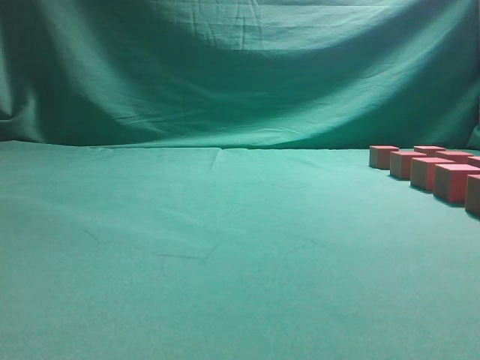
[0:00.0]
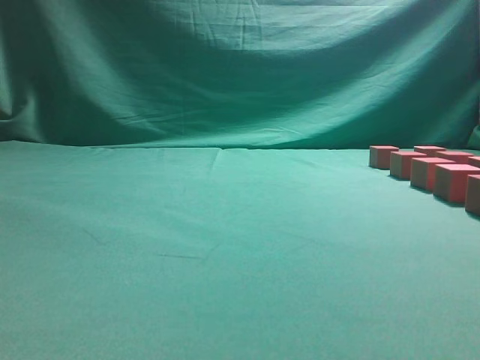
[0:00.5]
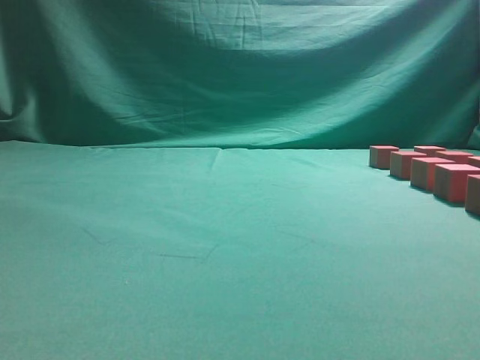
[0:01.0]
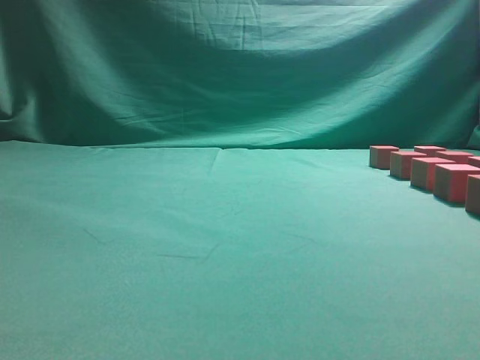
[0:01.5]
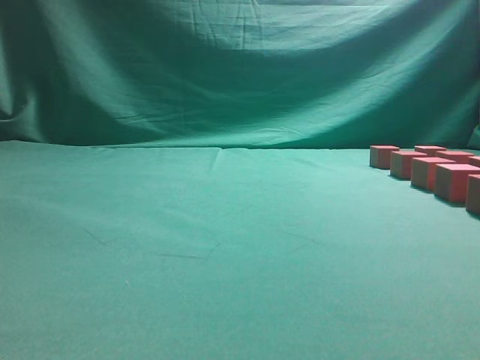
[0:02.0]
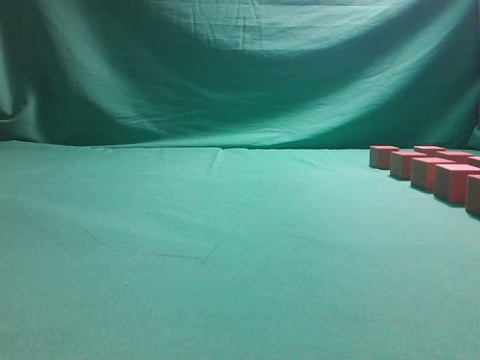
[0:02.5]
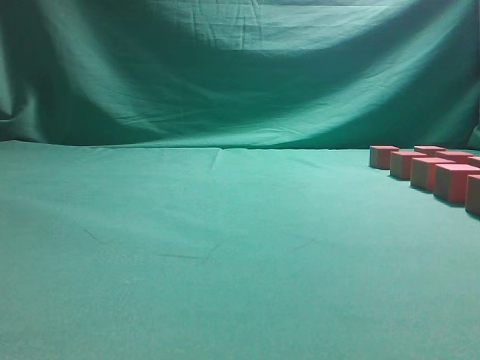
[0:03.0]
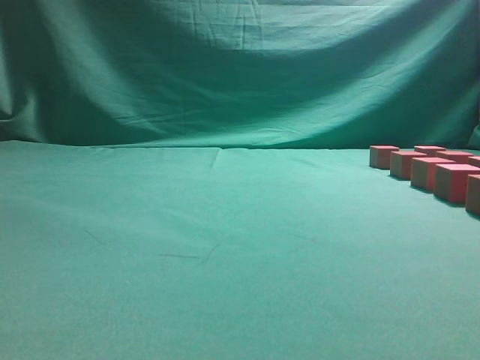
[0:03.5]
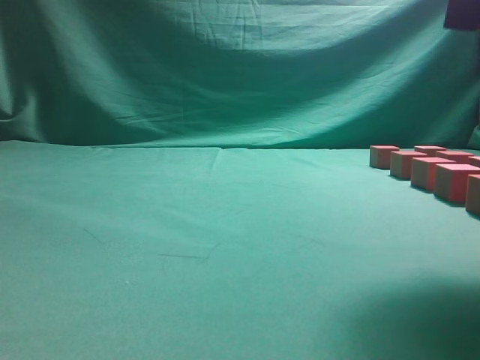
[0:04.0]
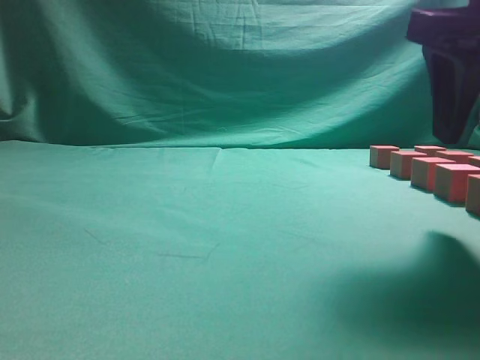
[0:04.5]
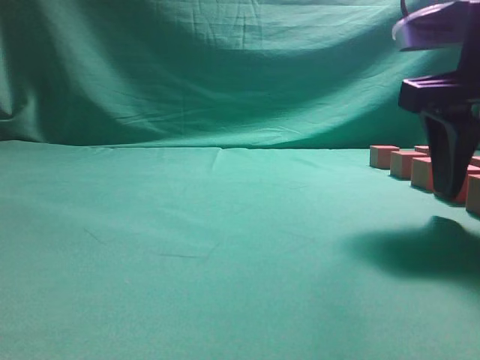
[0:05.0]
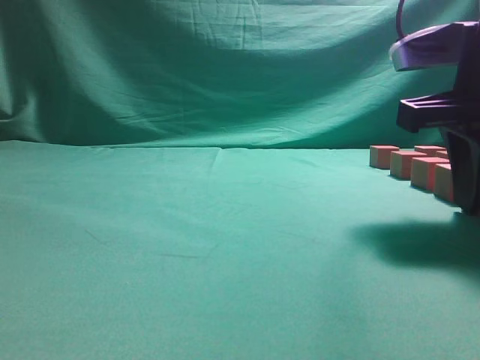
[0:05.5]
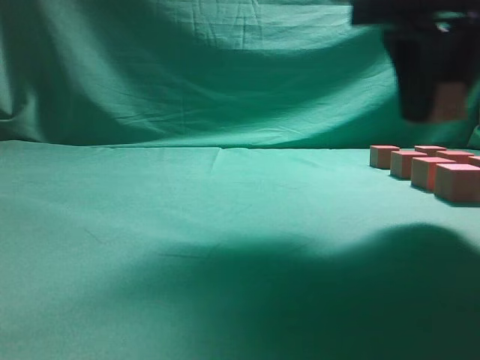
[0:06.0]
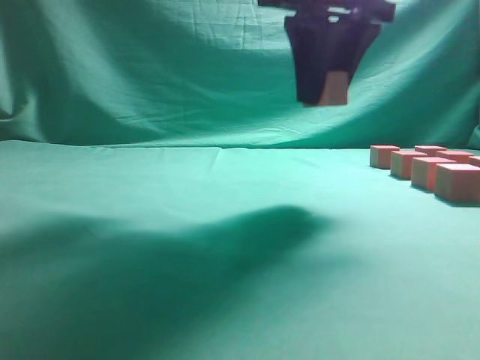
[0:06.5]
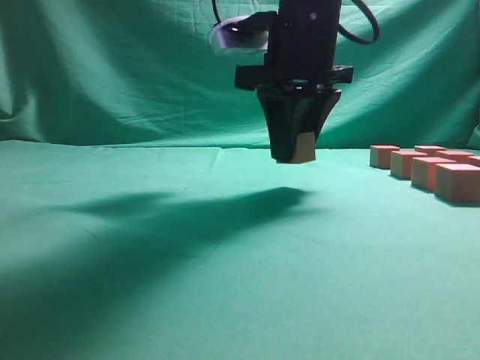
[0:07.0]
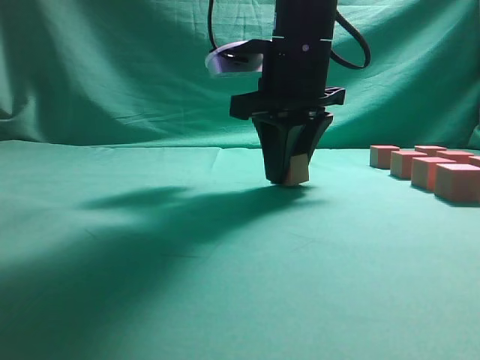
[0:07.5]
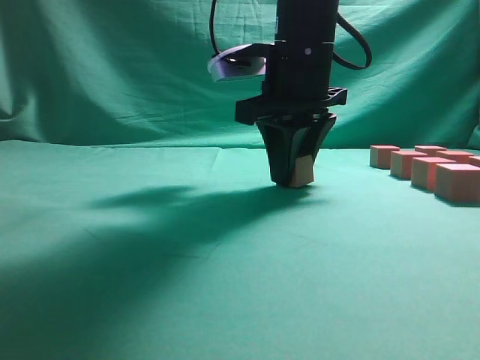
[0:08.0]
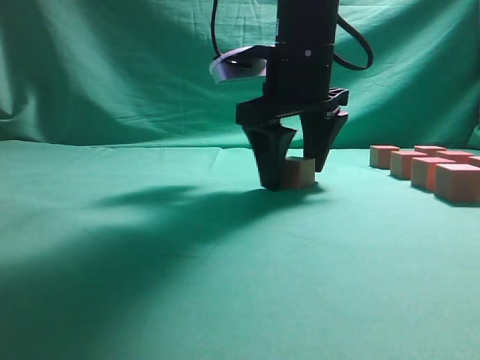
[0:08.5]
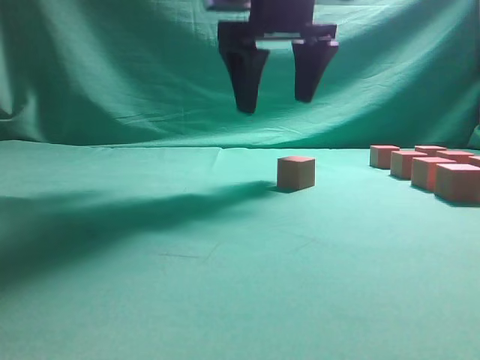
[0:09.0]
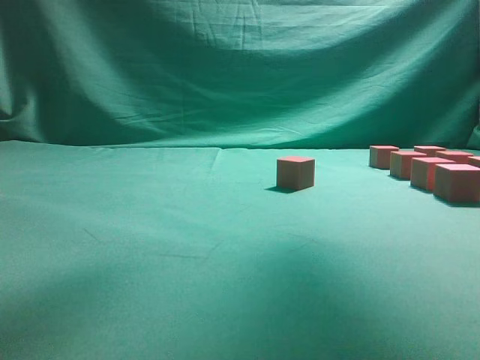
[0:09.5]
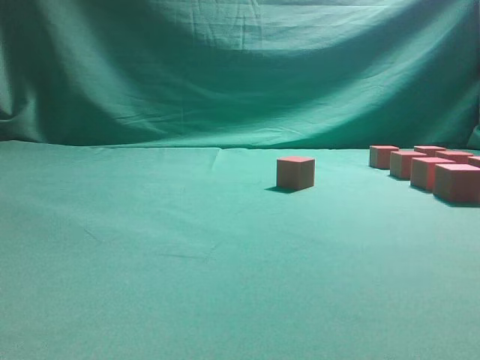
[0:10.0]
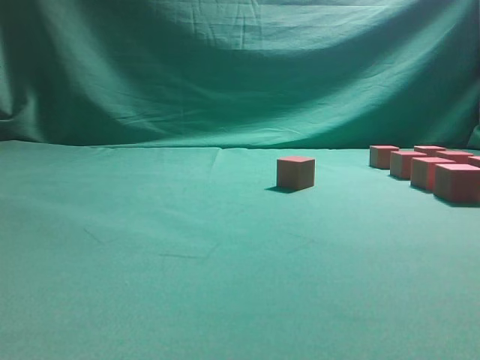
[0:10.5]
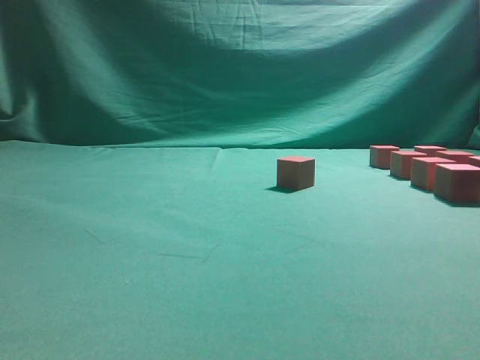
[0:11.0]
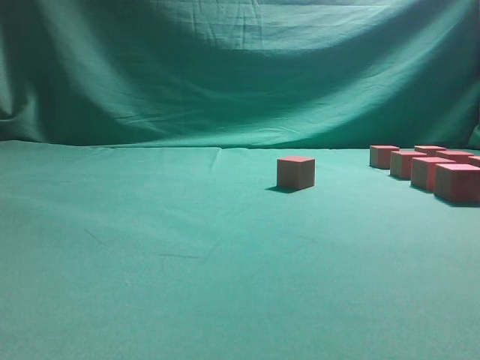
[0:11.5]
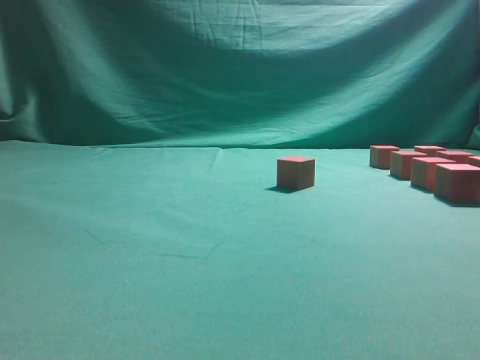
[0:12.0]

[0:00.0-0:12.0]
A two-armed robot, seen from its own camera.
Task of the whole recording: pick up the multiple cubes in two columns one by one and place them in another position on the table.
Step, 0:00.0 to 0:05.5: Pick up the block on the table.
Step, 0:06.0 to 0:09.0: Place the block at the correct position to assemble the letter S.
Step, 0:09.5 to 0:11.5: Pick up the block on the table.
0:02.0 to 0:04.0: The right gripper moves forward and to the left, some 20 cm, and opens.
0:04.0 to 0:06.0: The right gripper shifts roughly 5 cm forward, reaches some 5 cm downward, then returns, and opens, then closes again.
0:06.0 to 0:08.0: The right gripper moves forward, to the left and downward, approximately 15 cm.
0:08.0 to 0:10.0: The right gripper is displaced to the right, upward and backward by roughly 25 cm, and opens its fingers.

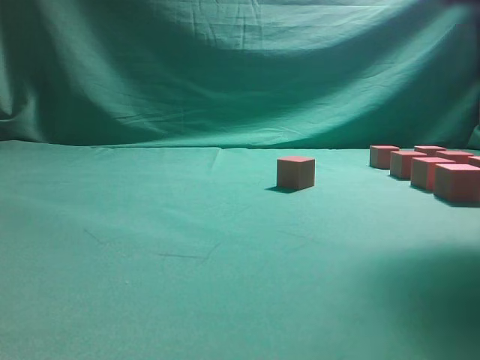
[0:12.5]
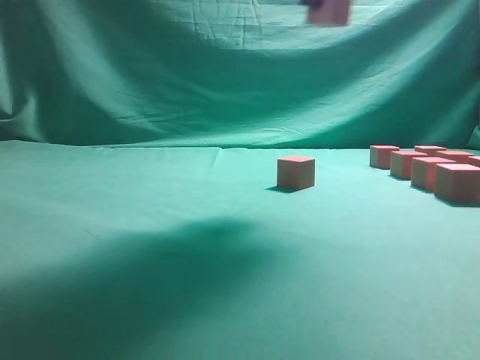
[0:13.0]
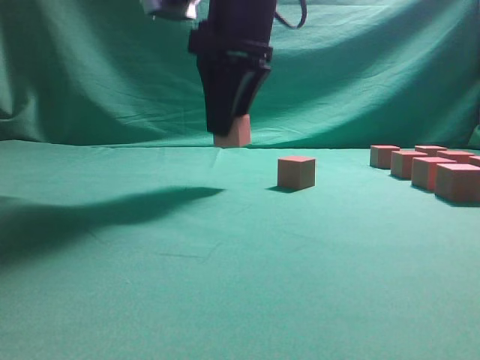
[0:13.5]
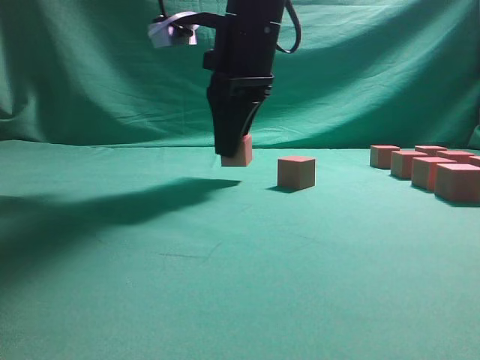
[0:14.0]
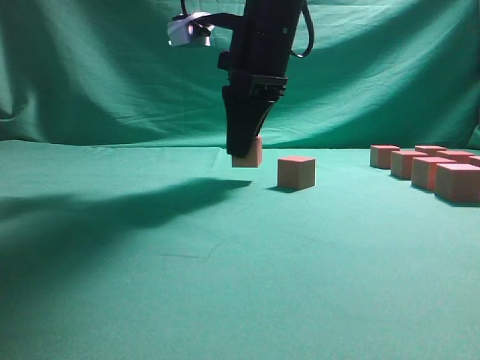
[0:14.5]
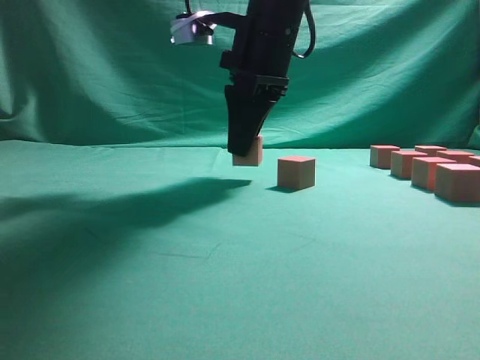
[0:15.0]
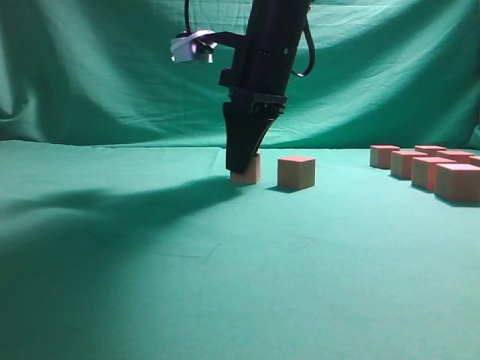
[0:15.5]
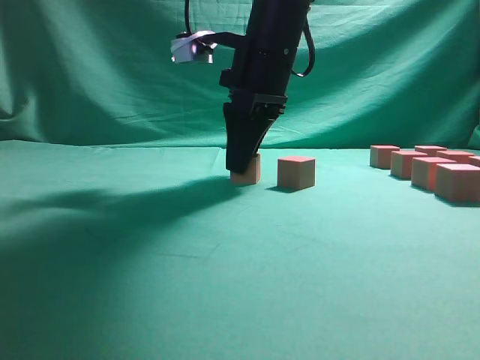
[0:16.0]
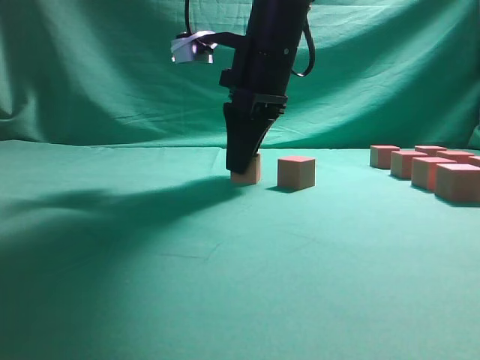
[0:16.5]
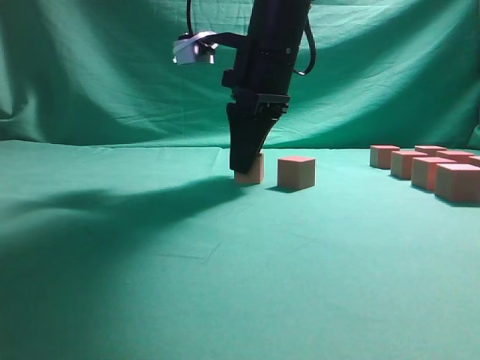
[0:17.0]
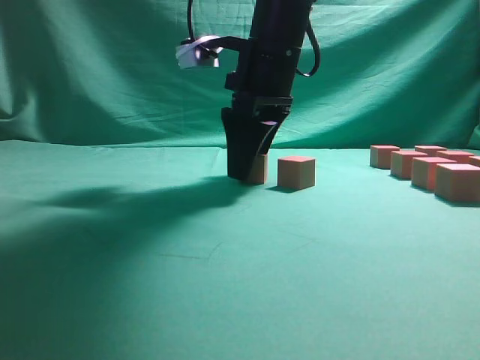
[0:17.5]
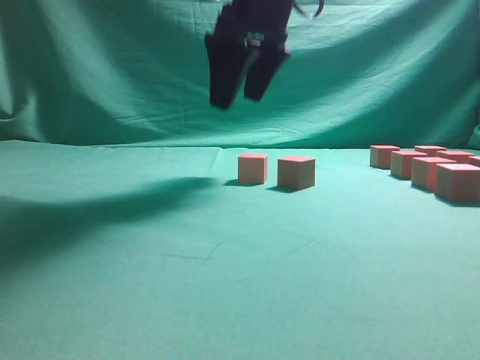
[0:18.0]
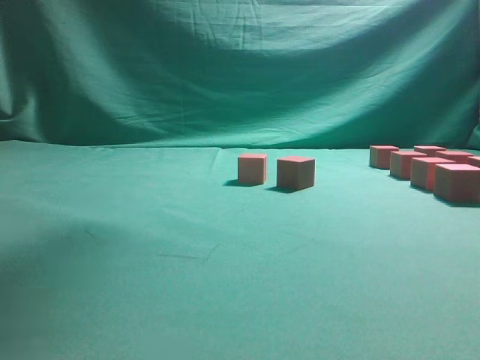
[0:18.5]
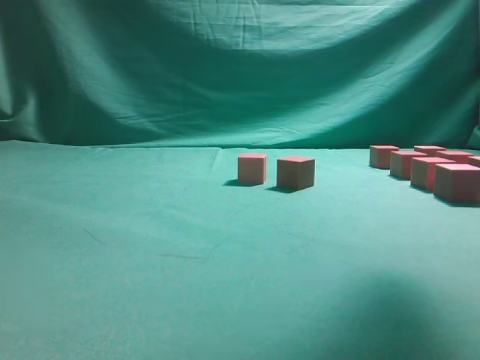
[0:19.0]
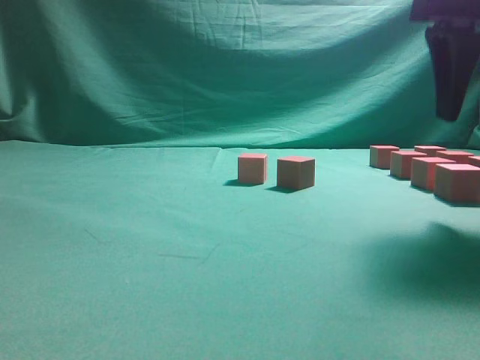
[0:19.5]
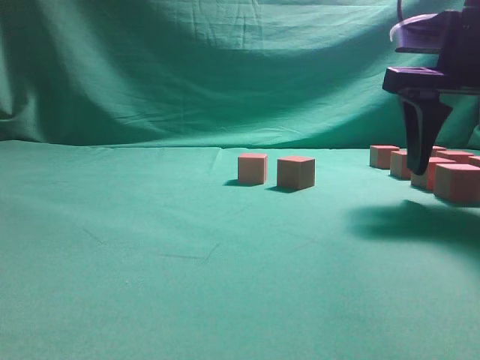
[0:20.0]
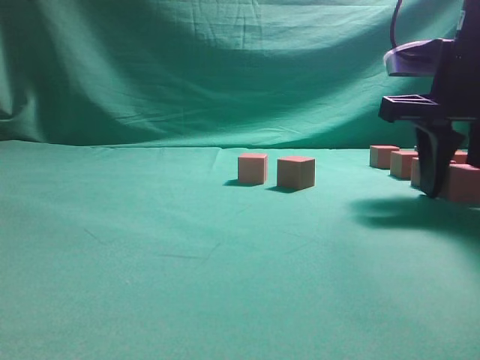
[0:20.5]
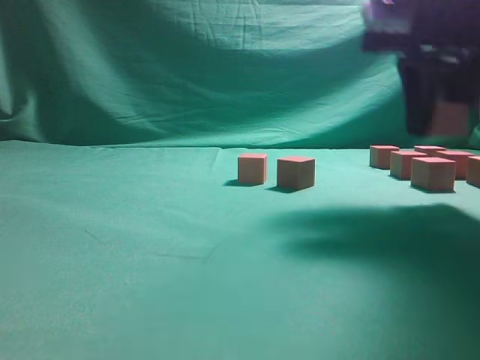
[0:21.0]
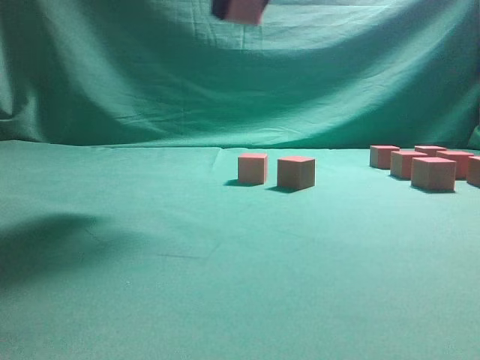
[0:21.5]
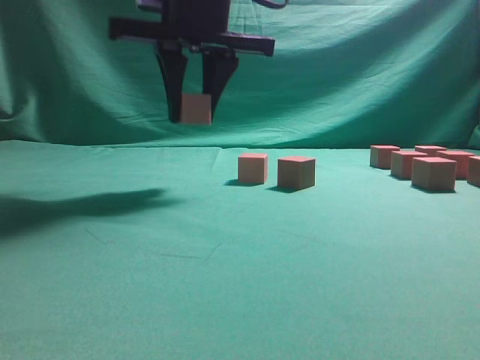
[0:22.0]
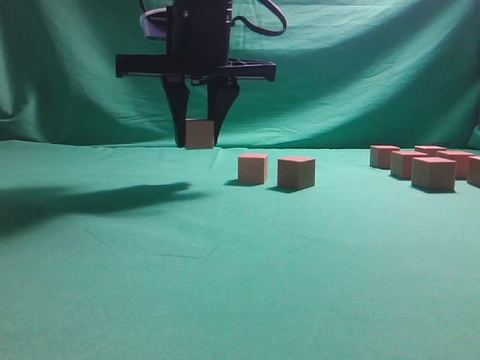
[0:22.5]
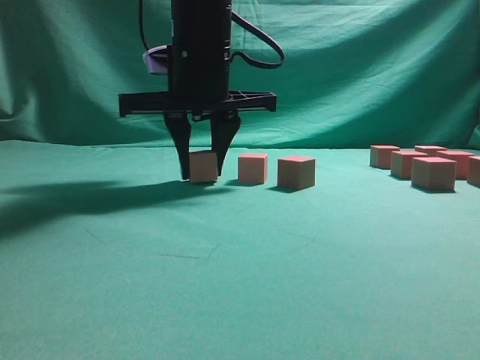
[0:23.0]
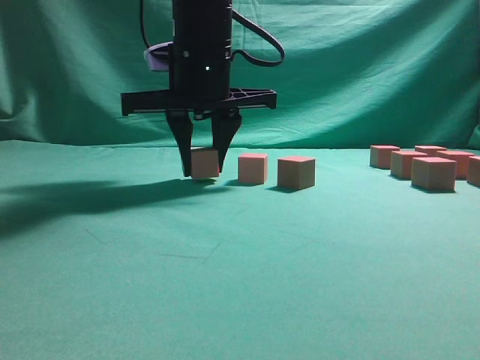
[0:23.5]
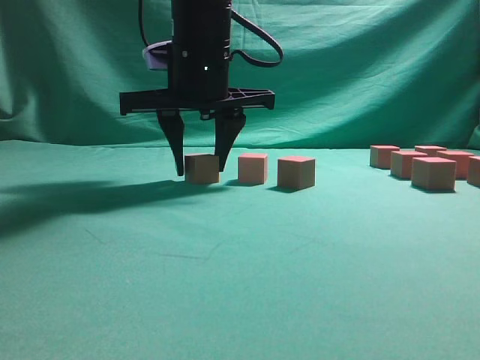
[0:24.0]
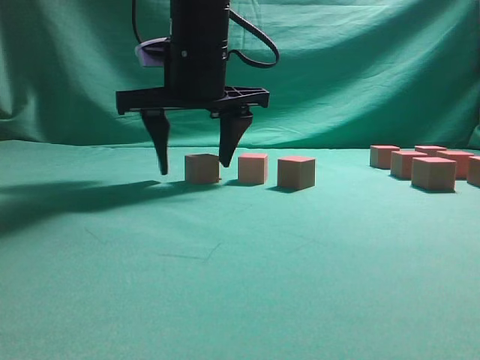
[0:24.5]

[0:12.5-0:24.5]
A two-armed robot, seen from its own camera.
Task of the whole recording: pick up the multiple cubes in two columns one by one and place them in another position on the table.
Step, 0:12.5 to 0:18.0: Place the block at the correct position to assemble the letter S.
Step, 0:18.5 to 0:20.5: Pick up the block on the table.
0:12.5 to 0:14.5: The right gripper moves to the left and forward, roughly 25 cm.
0:14.5 to 0:16.5: The grippers stay close to where they were, moving slightly.
0:16.5 to 0:18.5: The right gripper goes roughly 25 cm upward, and opens up.
0:18.5 to 0:20.5: The right gripper travels downward and to the right by some 30 cm, and closes up.
0:20.5 to 0:22.5: The right gripper is displaced to the left by roughly 25 cm.
0:22.5 to 0:24.5: The right gripper opens up.

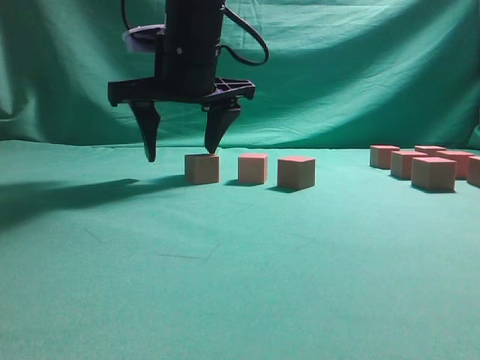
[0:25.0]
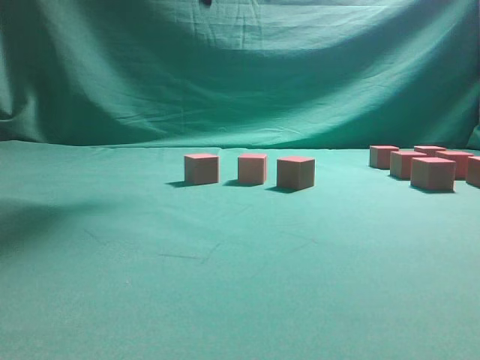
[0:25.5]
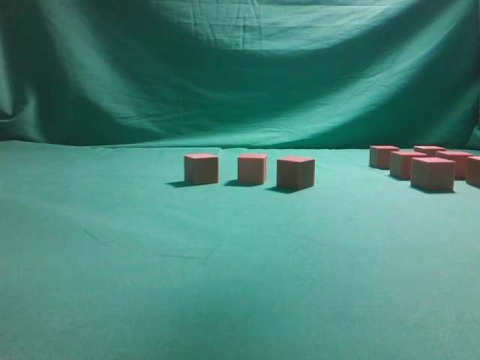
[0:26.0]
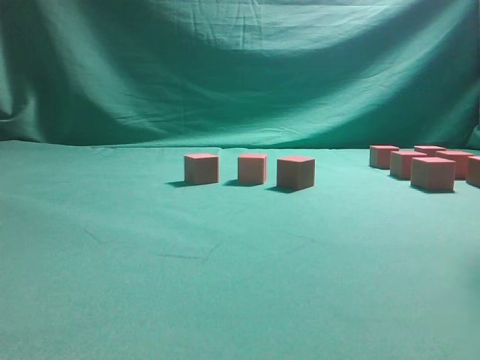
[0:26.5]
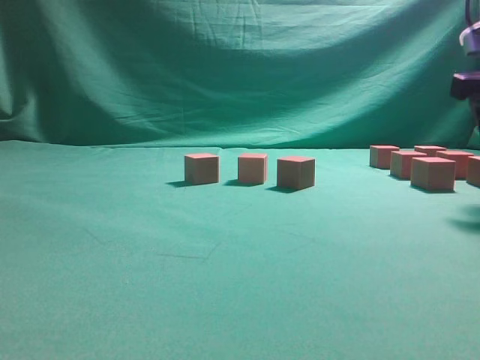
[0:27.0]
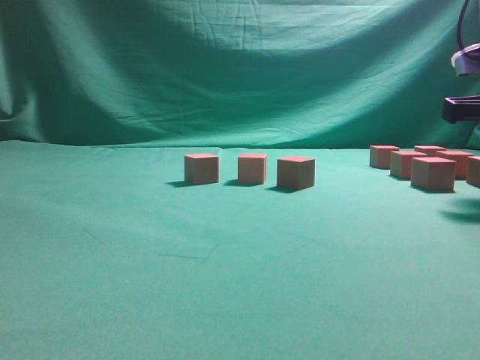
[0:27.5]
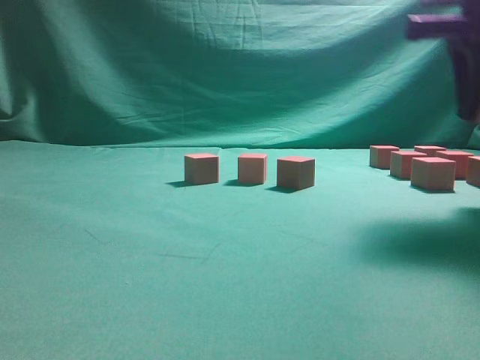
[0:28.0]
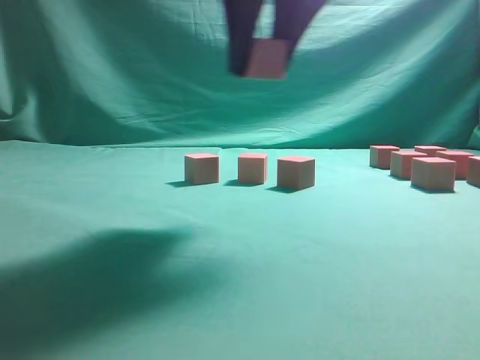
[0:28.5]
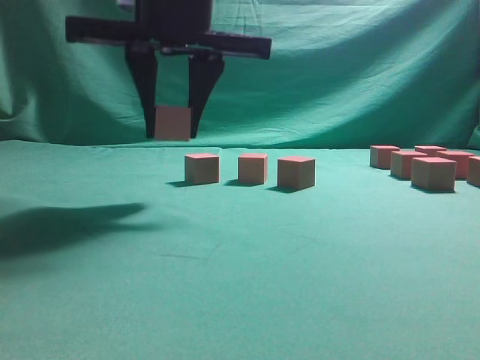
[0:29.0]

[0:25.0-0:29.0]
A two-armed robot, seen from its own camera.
Task of the whole recording: pick up the multiple cubes in two columns one by one and place them in another position on the table.
Step, 0:25.5 to 0:27.5: Pick up the block on the table.
0:25.0 to 0:27.0: The right gripper shifts about 30 cm to the right.
0:27.0 to 0:29.0: The right gripper is displaced to the left by some 30 cm, and closes up.
